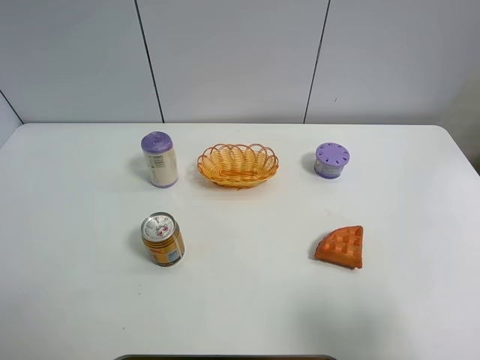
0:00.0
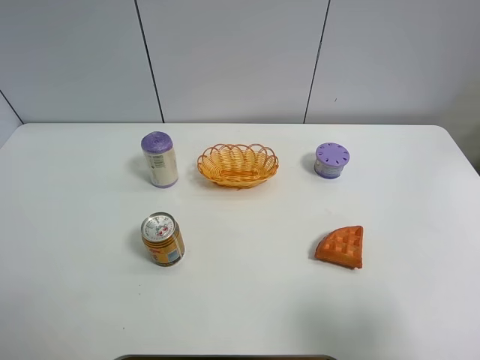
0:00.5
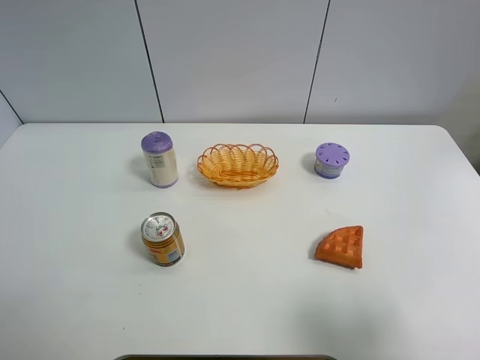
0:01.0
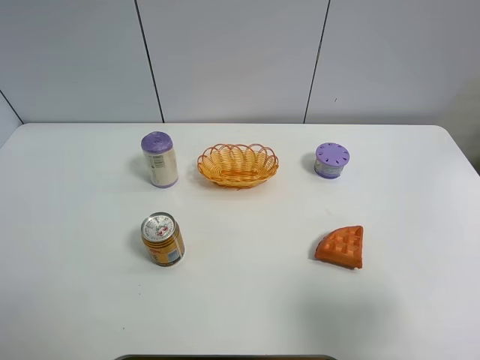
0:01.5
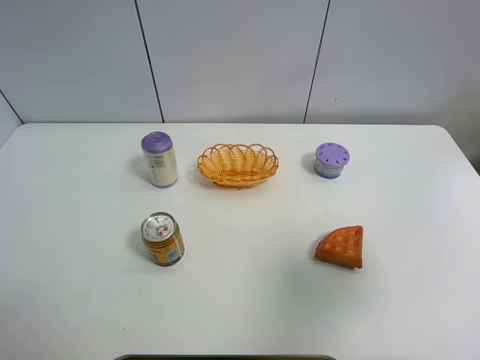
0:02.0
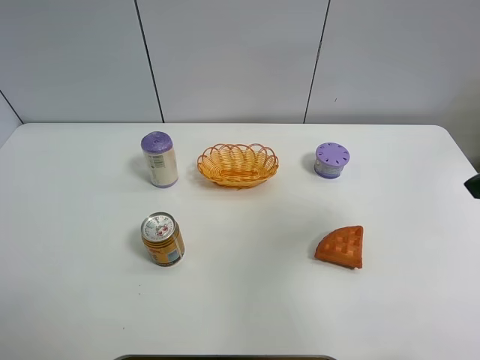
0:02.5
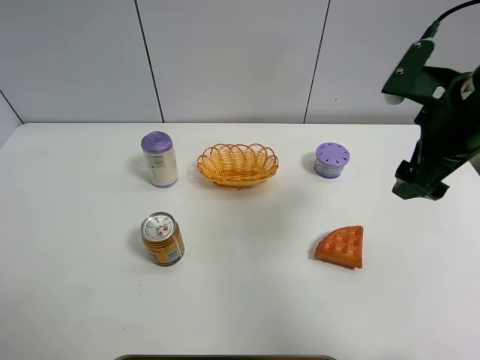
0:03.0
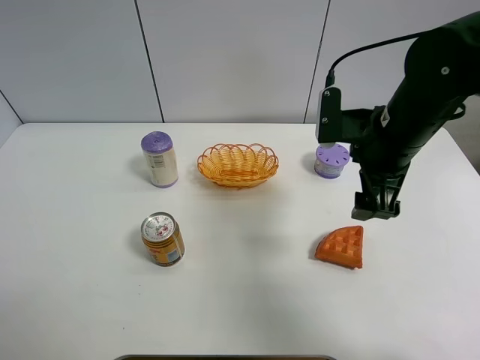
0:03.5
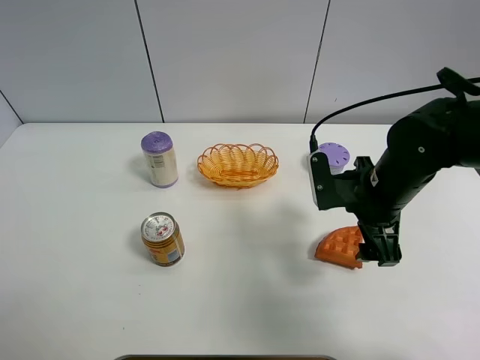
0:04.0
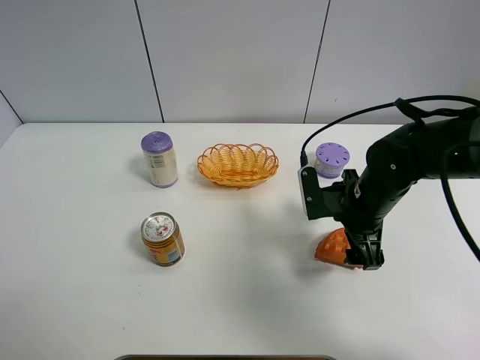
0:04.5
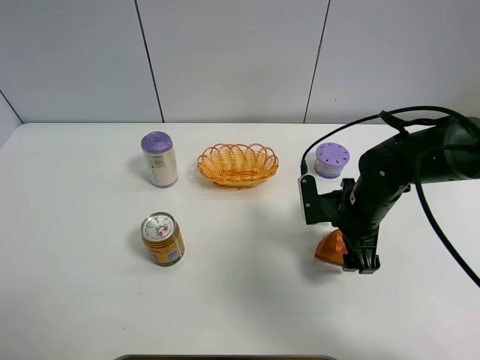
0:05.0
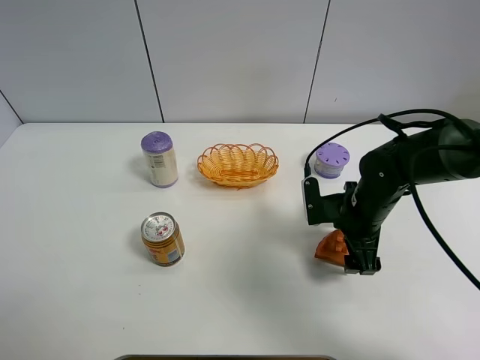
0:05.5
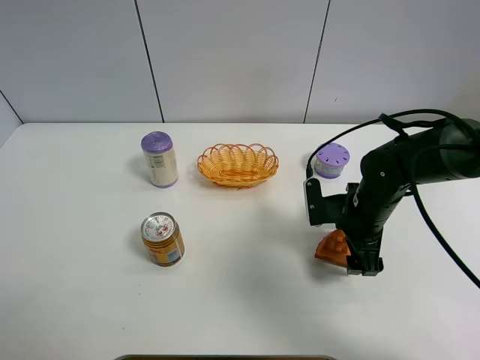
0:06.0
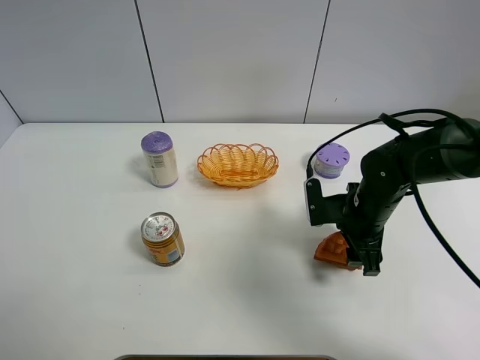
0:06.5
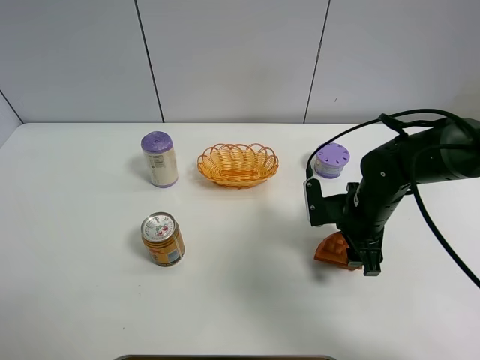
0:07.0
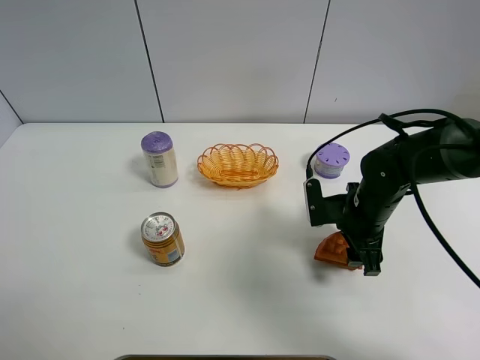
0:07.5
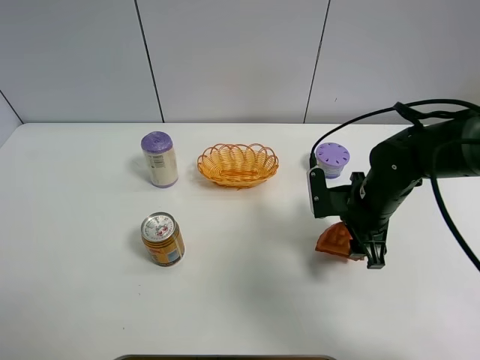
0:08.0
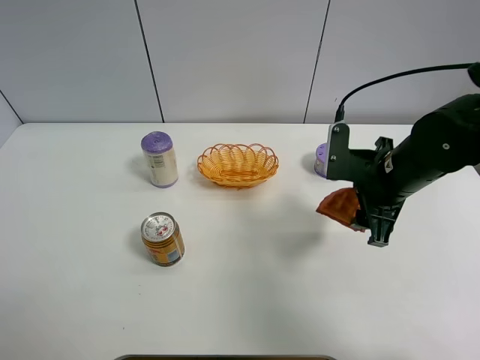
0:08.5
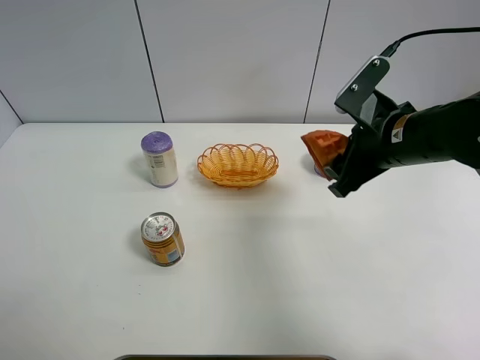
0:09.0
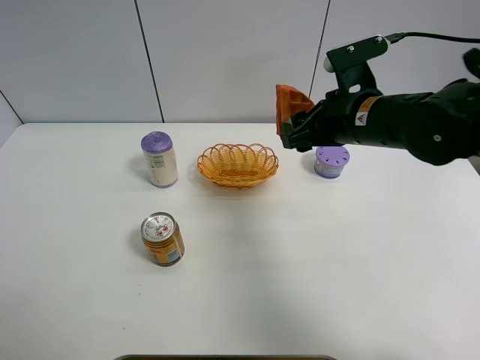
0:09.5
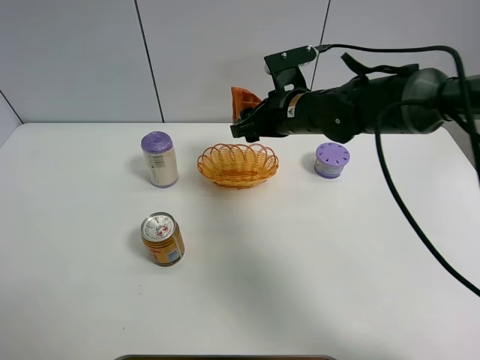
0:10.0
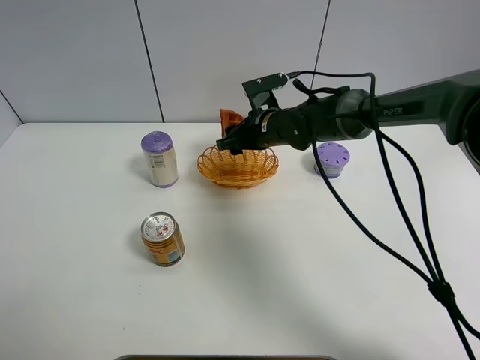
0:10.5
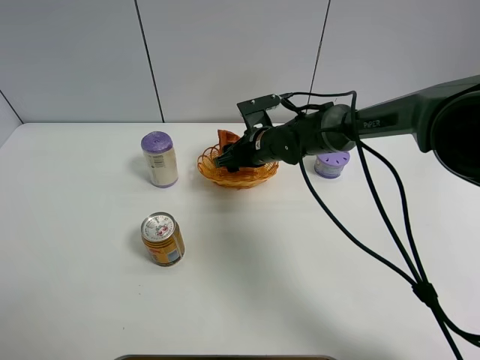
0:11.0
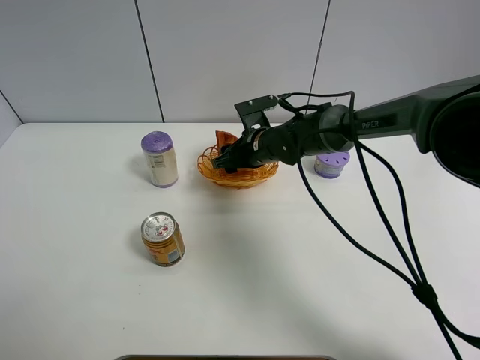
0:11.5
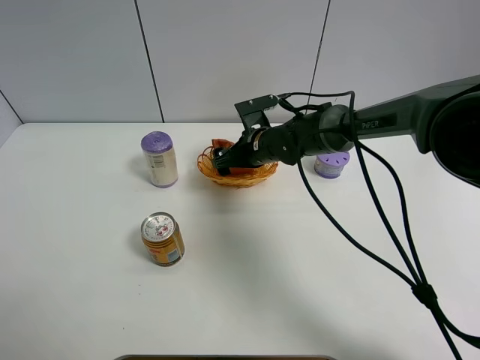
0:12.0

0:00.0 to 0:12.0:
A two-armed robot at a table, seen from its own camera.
Task of the whole recording: Put the bakery in the basket.
Step, 0:00.0 to 0:06.0: Grasp the bread with right gripper.
0:00.0 to 0:02.0: The right gripper travels forward and upward by about 10 cm.
0:02.0 to 0:04.0: The right gripper moves downward, forward and to the left, approximately 25 cm.
0:04.0 to 0:06.0: The right gripper heads downward, covering roughly 5 cm.
0:06.0 to 0:08.0: The right gripper closes its fingers.
0:08.0 to 0:10.0: The right gripper goes roughly 15 cm to the left, forward and upward.
0:10.0 to 0:12.0: The right gripper travels downward by approximately 10 cm, and opens.

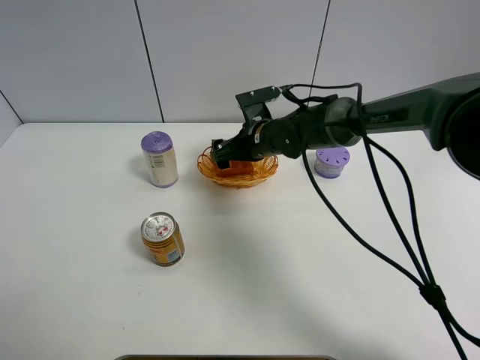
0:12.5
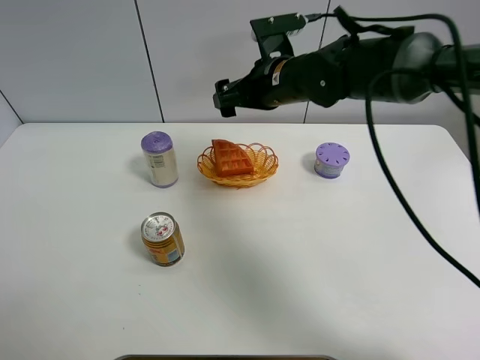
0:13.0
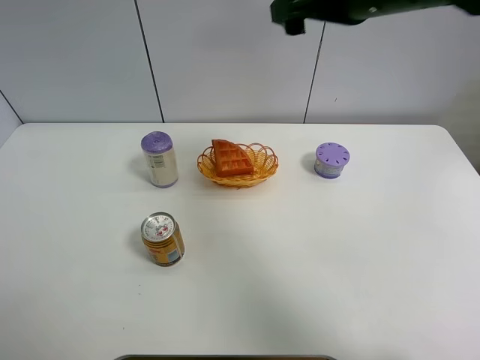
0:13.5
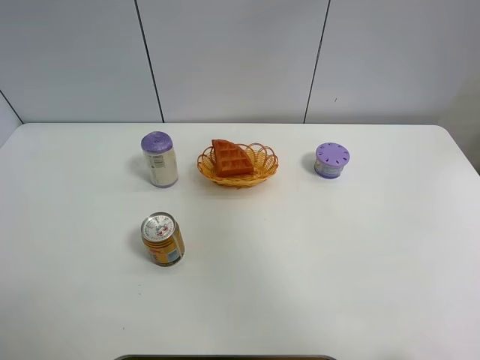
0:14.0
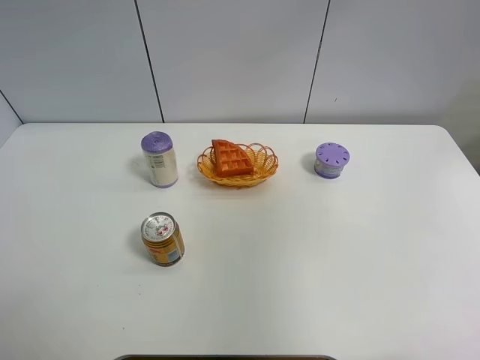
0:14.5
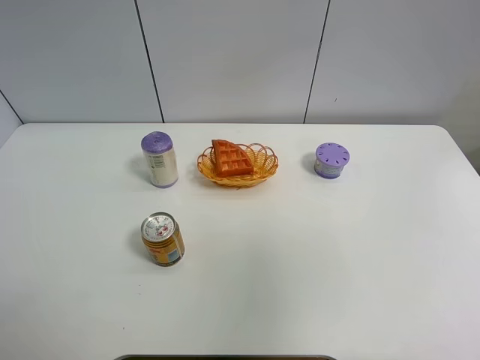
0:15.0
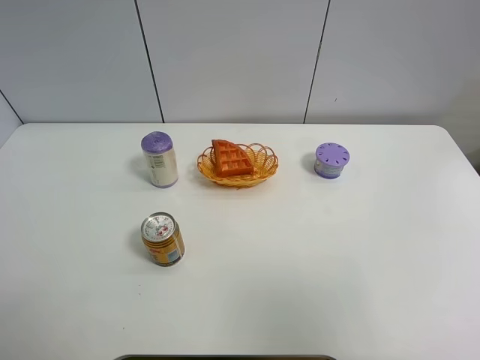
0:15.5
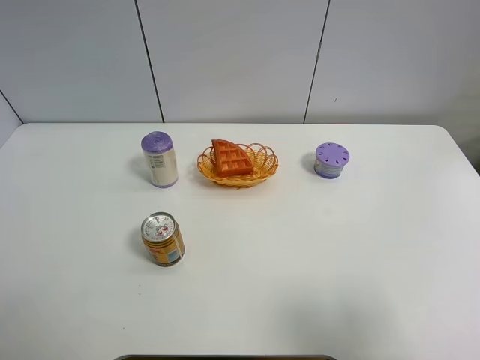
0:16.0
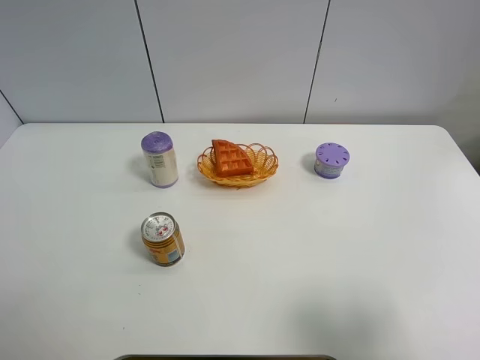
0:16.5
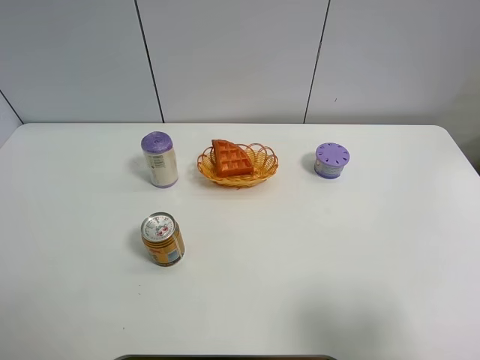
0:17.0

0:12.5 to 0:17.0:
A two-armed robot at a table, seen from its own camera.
Task of the whole recording: Put the bakery in the basket.
0:12.5 to 0:14.5: The right gripper moves upward, backward and to the right, roughly 50 cm.
0:14.5 to 0:17.0: The right gripper is displaced downward and backward by approximately 25 cm.
